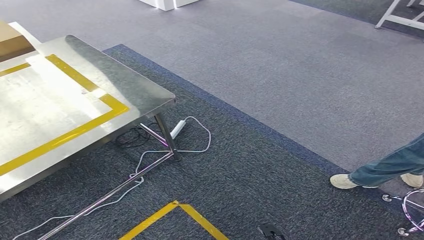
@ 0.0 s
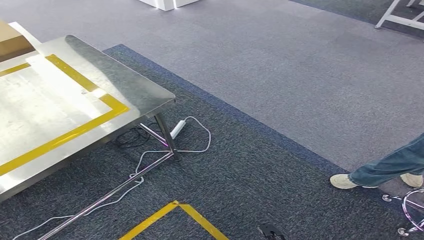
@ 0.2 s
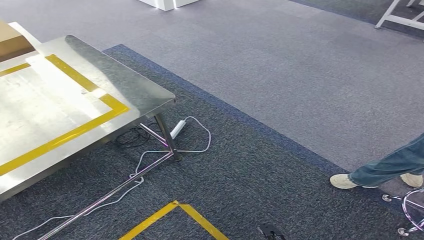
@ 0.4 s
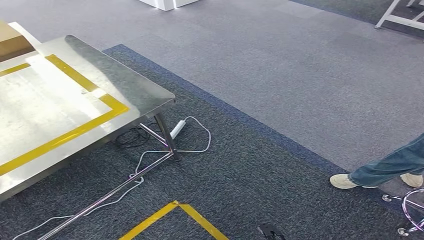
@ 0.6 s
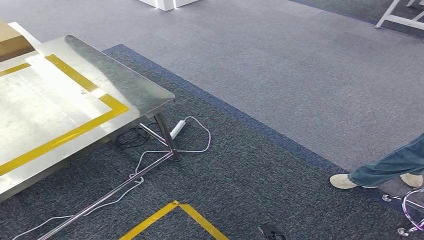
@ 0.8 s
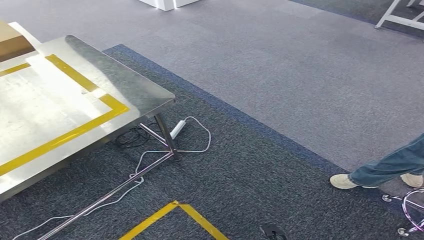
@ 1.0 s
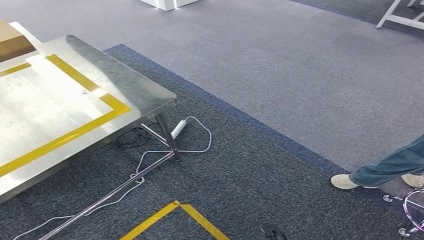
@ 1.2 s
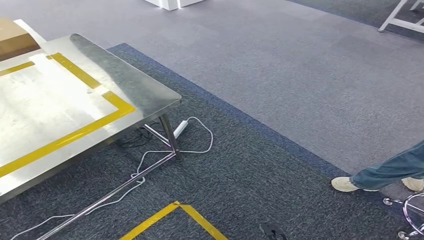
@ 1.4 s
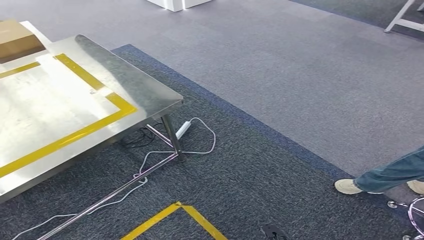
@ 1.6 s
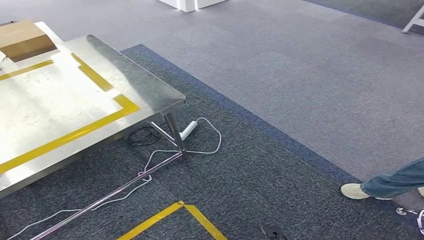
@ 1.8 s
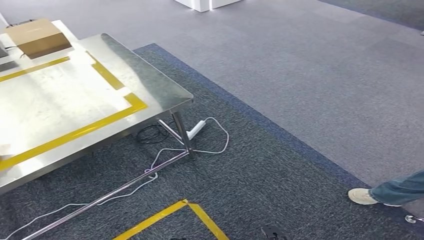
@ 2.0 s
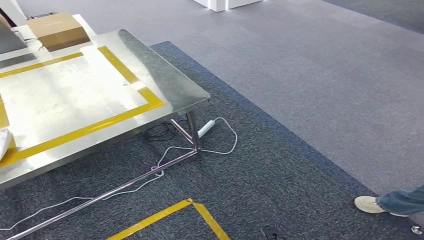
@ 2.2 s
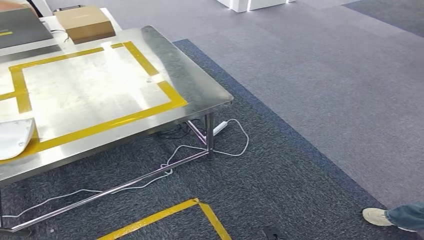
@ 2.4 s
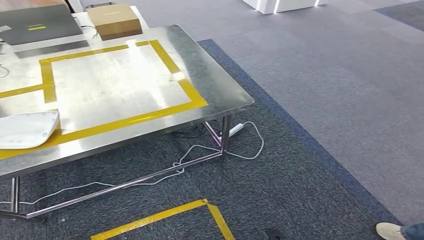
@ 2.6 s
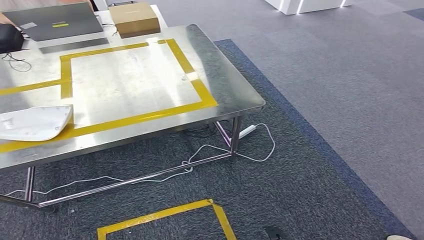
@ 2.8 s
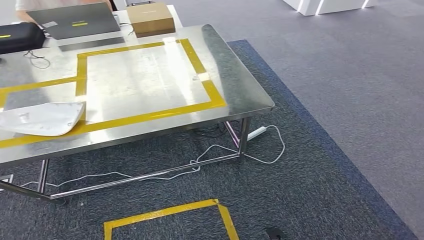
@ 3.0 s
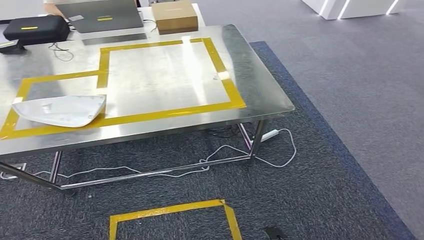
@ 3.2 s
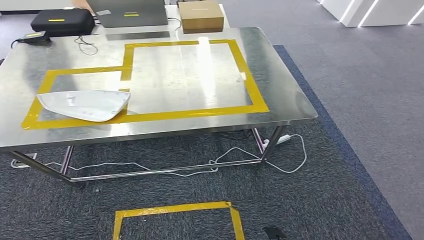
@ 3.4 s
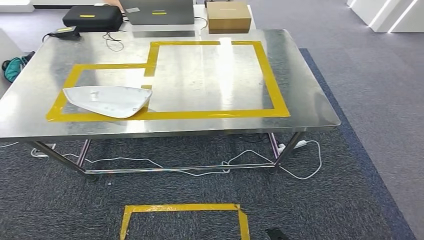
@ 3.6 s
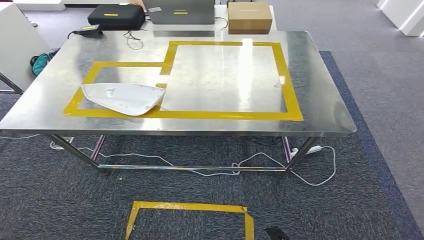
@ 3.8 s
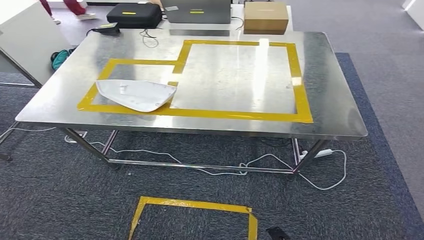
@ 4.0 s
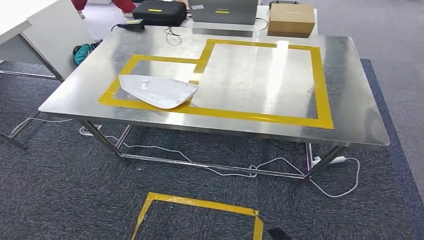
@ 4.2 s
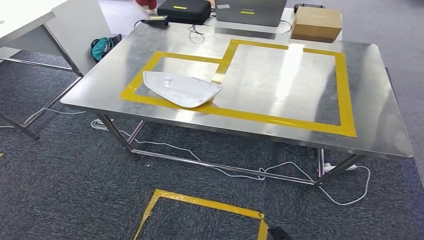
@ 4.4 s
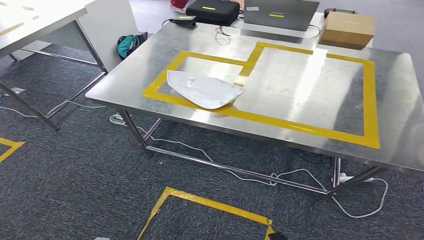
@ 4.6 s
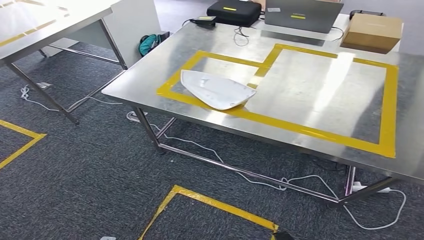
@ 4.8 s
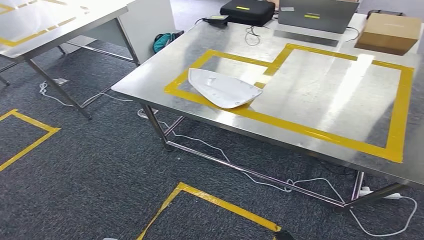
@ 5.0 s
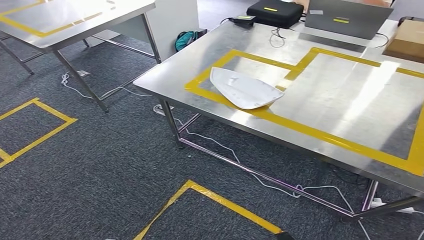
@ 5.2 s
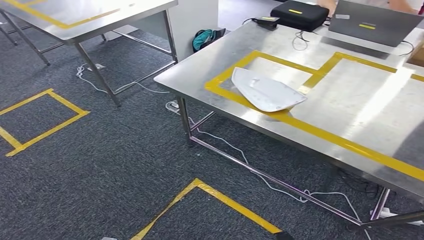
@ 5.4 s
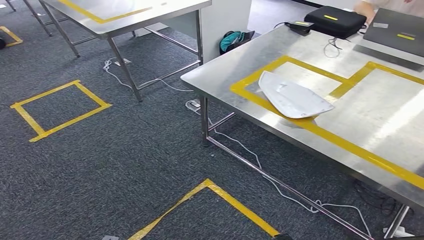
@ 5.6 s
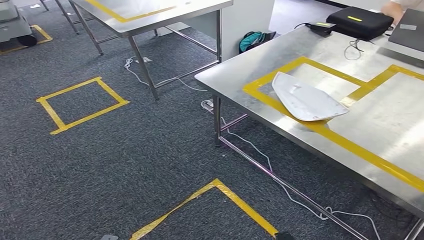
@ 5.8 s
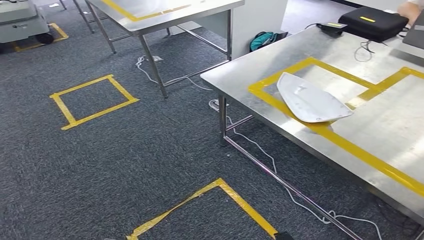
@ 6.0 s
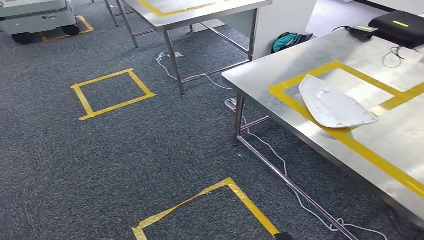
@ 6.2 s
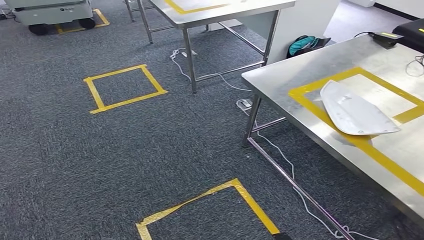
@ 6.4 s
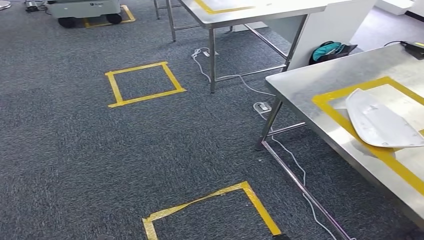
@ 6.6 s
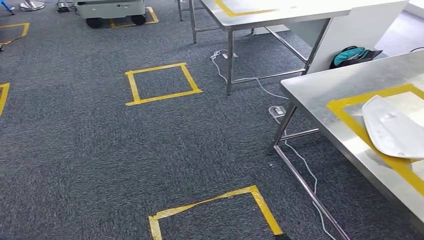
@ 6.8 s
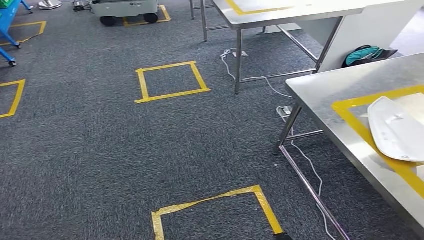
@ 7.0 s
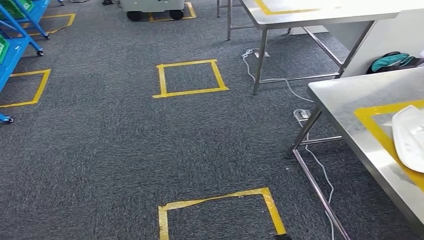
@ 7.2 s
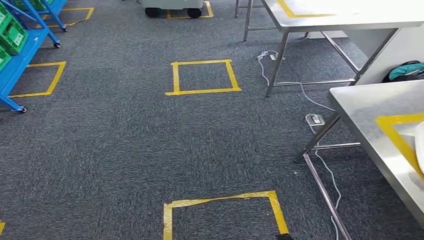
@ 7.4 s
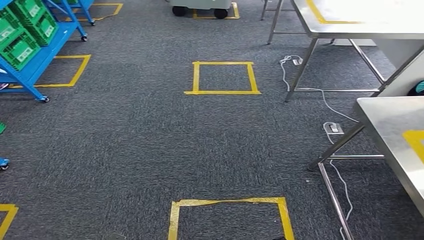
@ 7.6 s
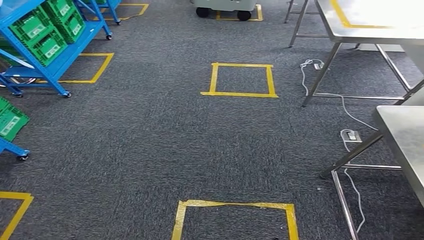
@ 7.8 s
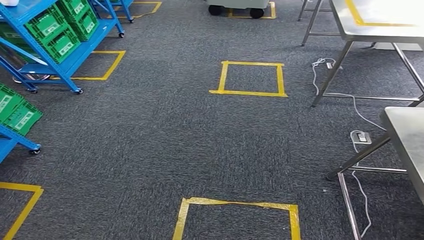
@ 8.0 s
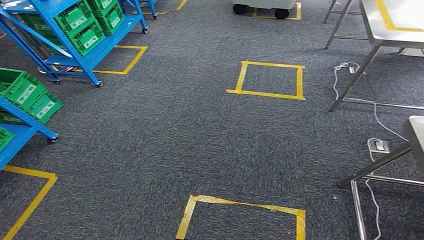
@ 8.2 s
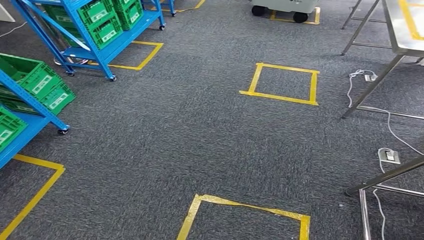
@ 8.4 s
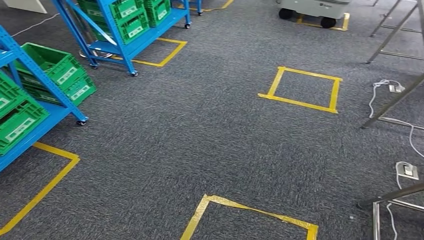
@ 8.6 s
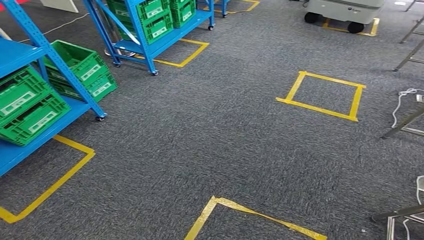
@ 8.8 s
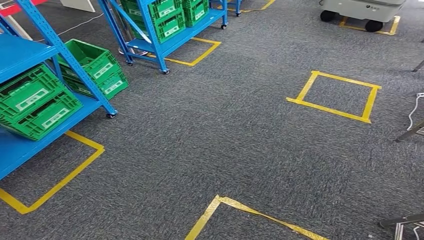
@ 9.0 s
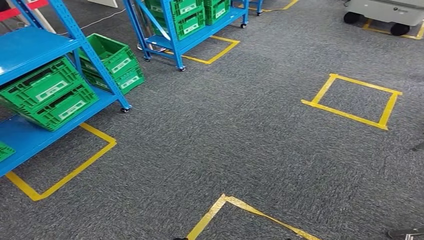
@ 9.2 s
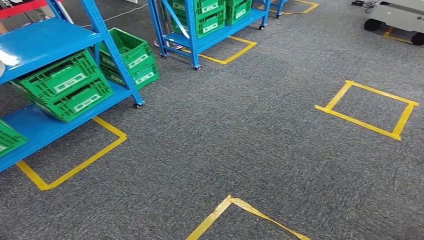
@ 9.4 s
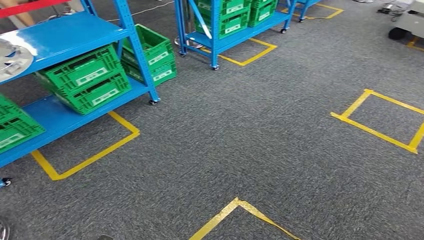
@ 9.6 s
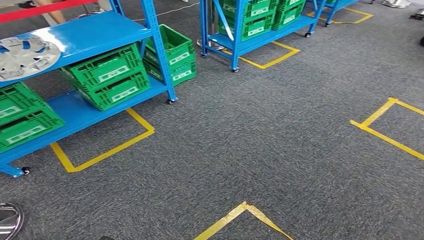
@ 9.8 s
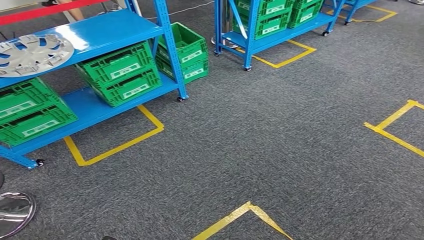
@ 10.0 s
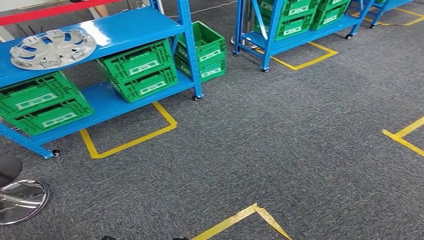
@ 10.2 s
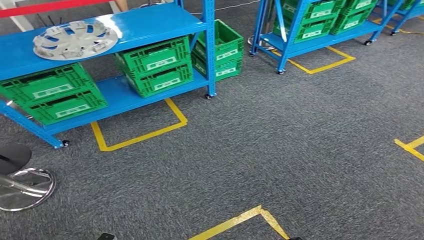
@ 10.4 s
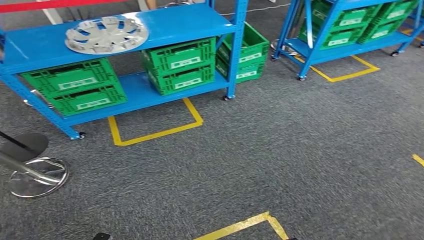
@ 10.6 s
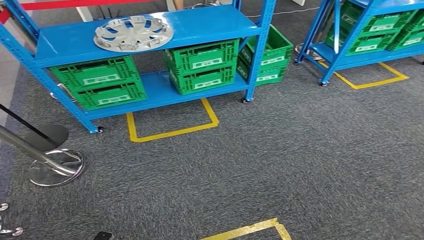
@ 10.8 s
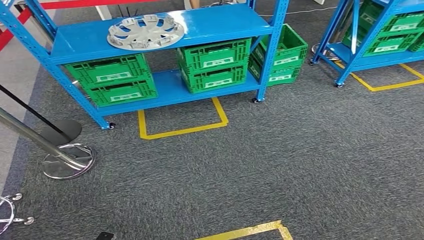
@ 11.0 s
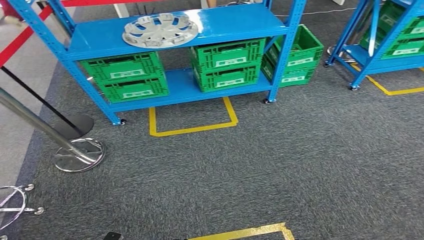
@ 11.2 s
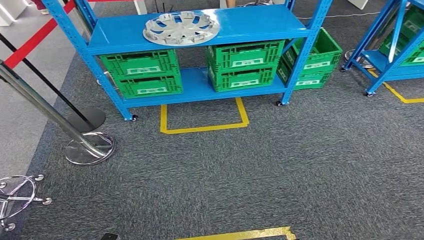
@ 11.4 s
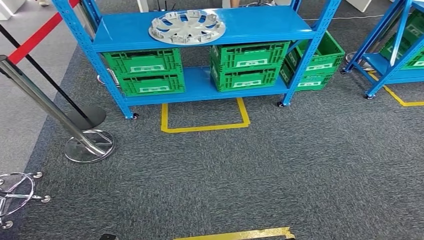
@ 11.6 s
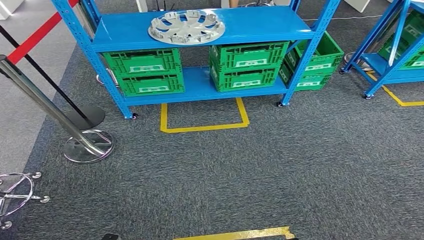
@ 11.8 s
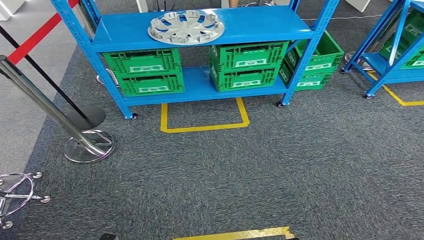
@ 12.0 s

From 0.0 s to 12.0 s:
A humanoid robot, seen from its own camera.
Step, from 0.0 s to 6.2 s: Insert the small parts into the corresponding holes on the workbench.
From 0.0 s to 1.6 s: The left hand travels upward and to the left by approximately 15 cm.

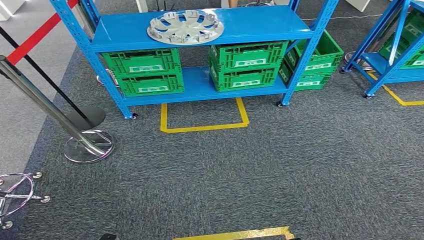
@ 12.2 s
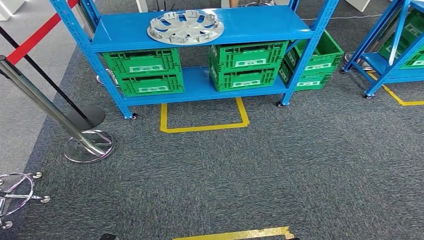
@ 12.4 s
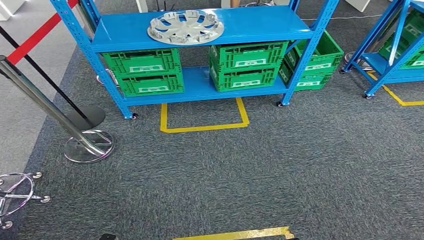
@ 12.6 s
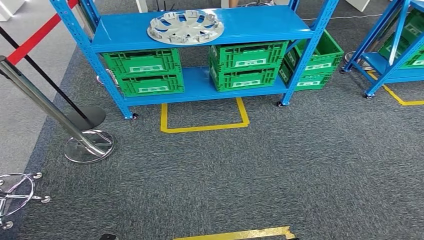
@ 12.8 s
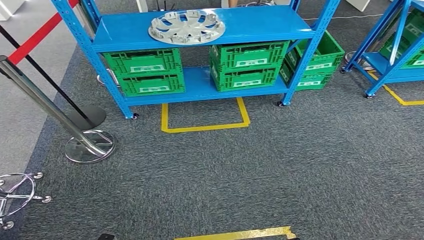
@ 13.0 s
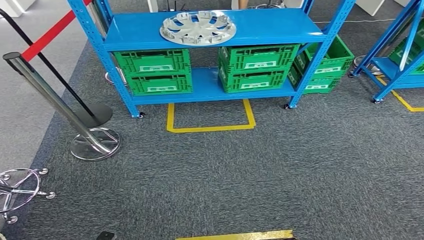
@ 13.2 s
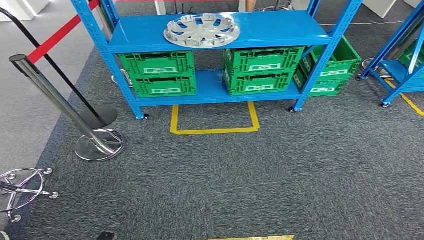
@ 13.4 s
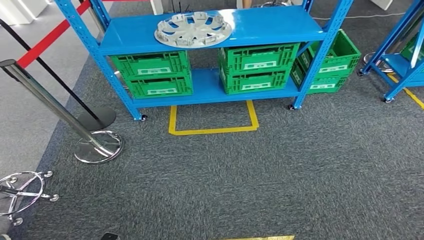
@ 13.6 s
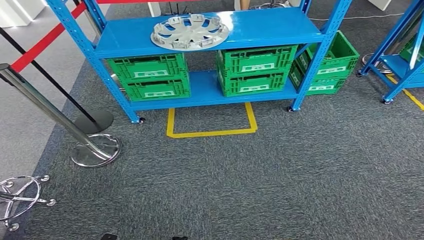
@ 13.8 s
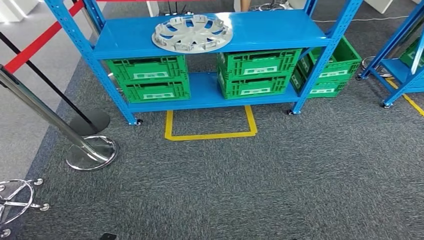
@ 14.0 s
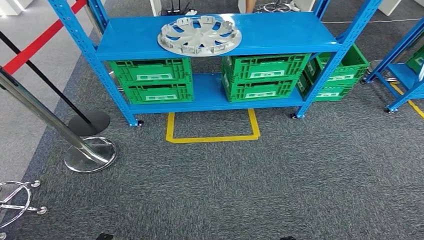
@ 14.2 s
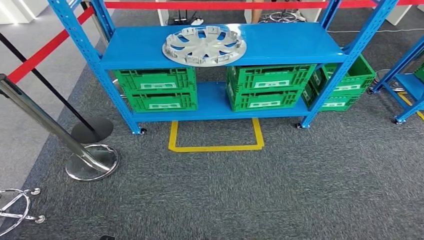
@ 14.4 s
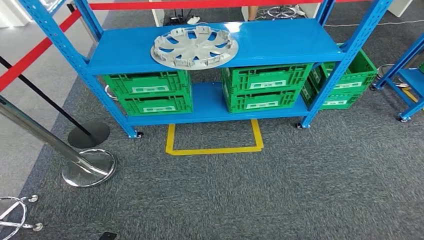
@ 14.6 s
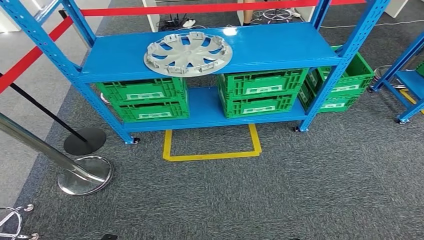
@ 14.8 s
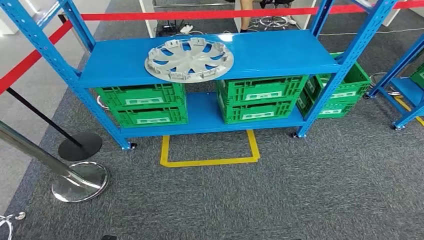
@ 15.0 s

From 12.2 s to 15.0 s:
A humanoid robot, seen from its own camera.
Step, from 12.2 s to 14.8 s: Move to the initial position at the workbench.
